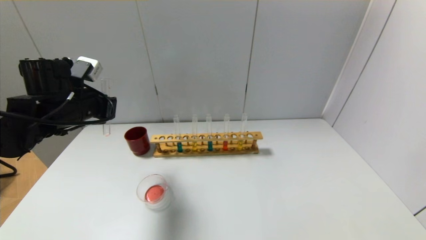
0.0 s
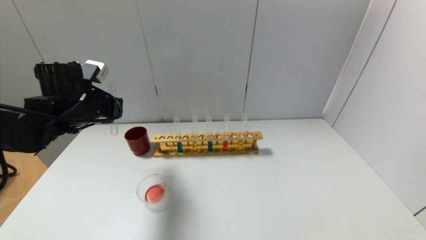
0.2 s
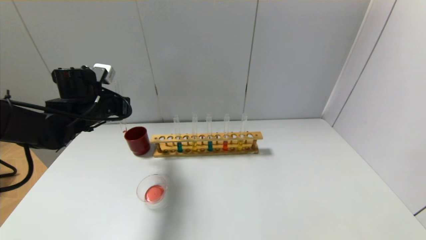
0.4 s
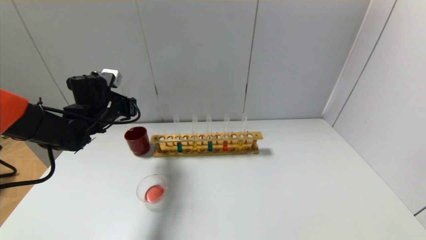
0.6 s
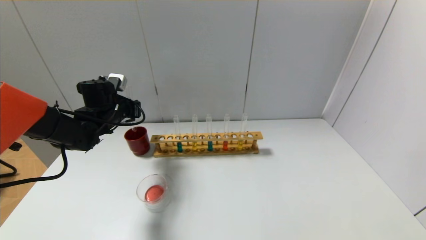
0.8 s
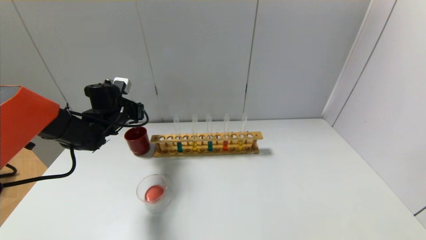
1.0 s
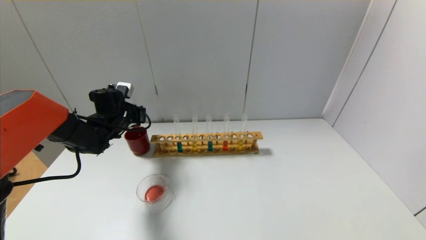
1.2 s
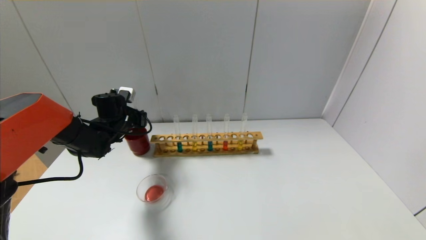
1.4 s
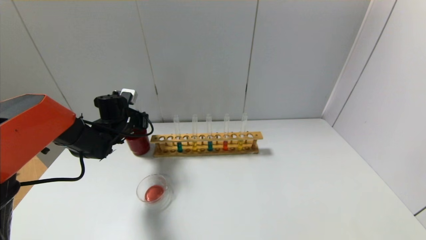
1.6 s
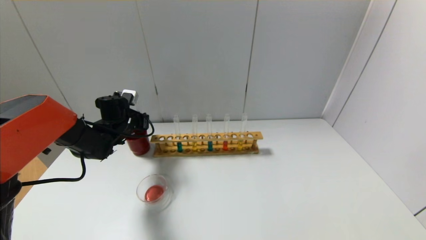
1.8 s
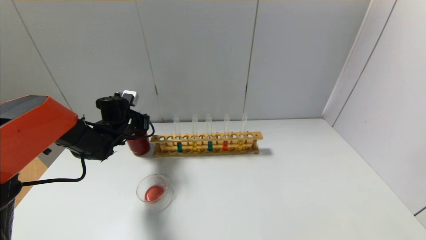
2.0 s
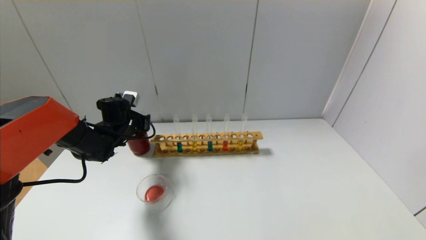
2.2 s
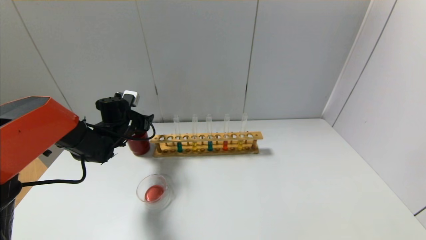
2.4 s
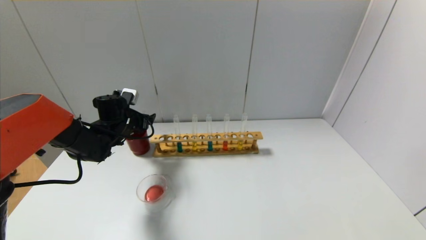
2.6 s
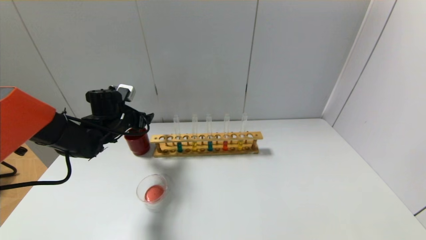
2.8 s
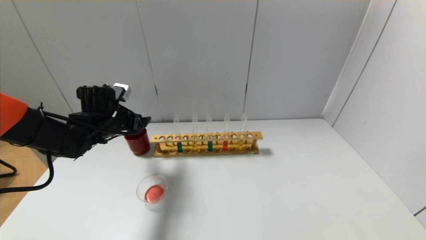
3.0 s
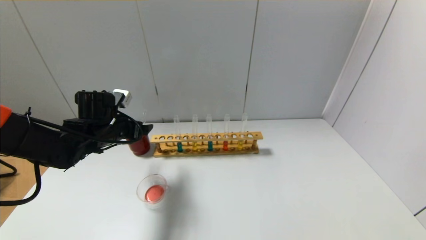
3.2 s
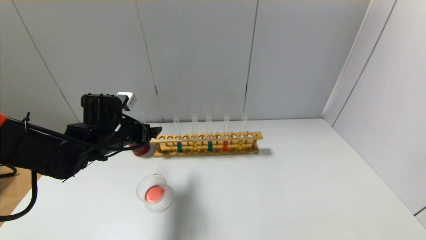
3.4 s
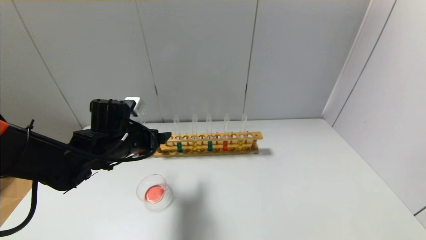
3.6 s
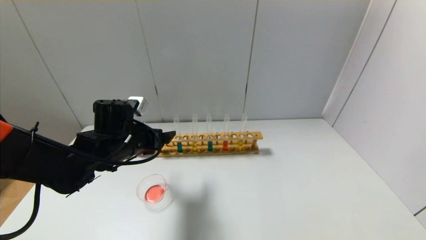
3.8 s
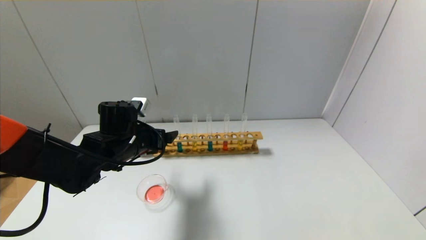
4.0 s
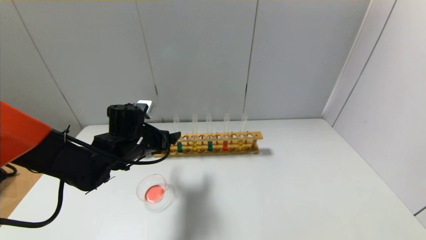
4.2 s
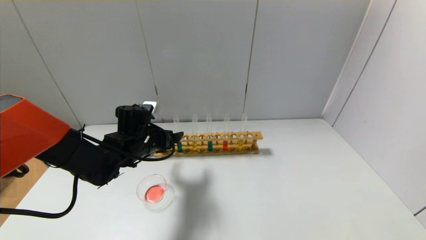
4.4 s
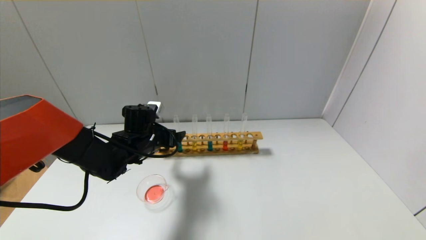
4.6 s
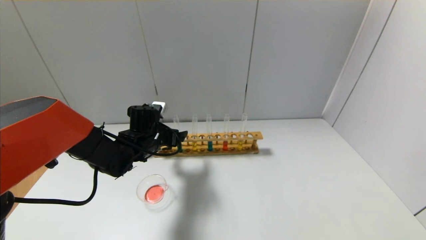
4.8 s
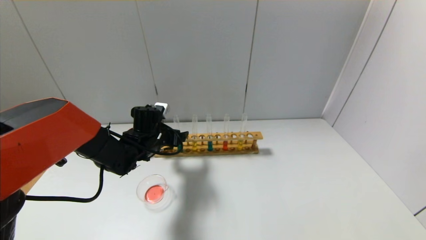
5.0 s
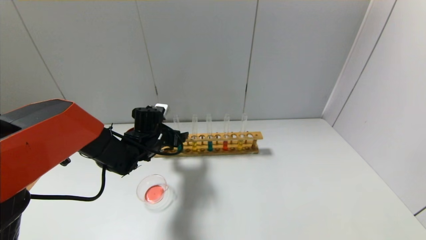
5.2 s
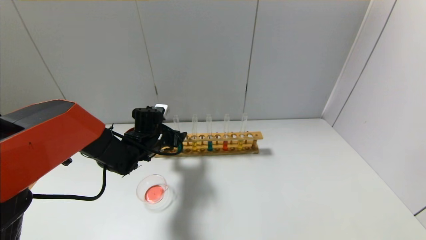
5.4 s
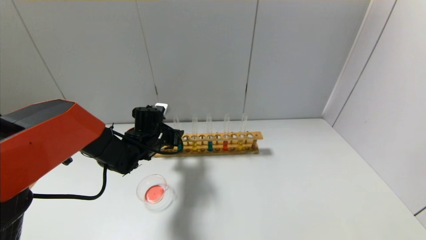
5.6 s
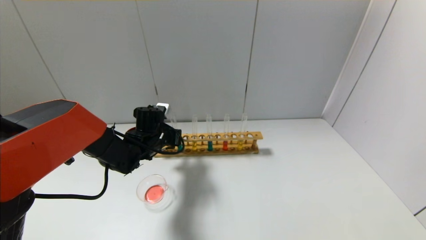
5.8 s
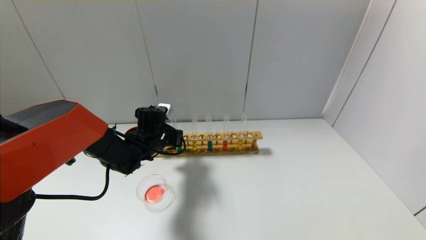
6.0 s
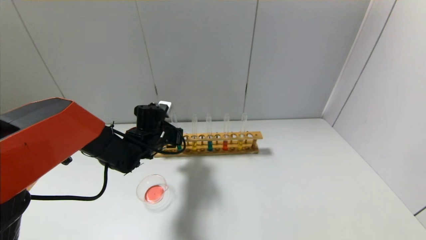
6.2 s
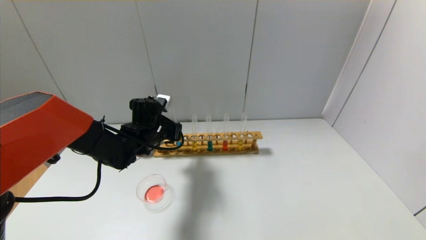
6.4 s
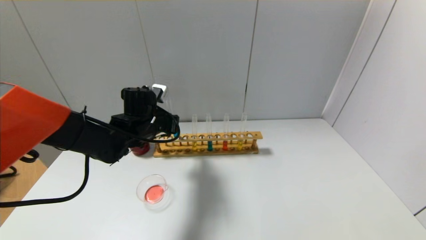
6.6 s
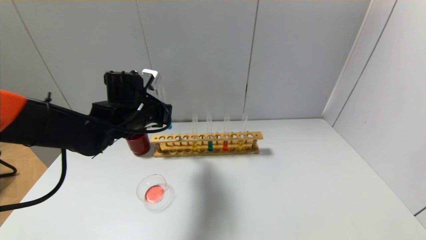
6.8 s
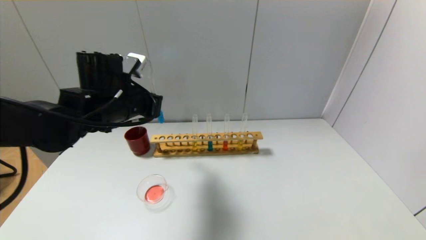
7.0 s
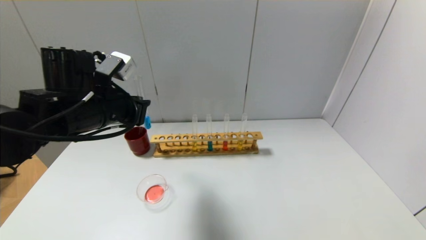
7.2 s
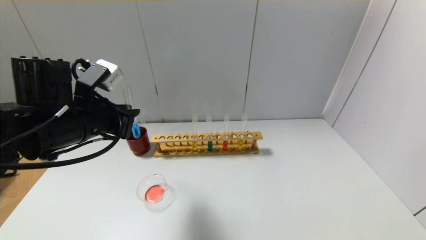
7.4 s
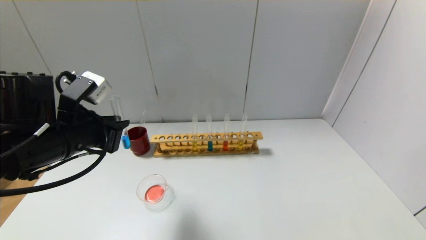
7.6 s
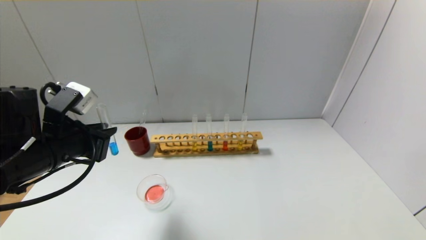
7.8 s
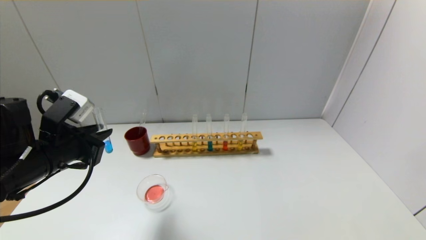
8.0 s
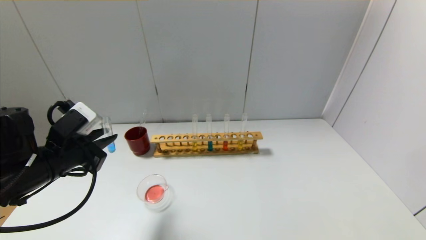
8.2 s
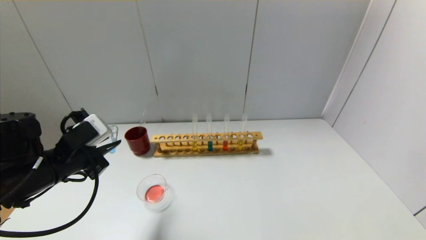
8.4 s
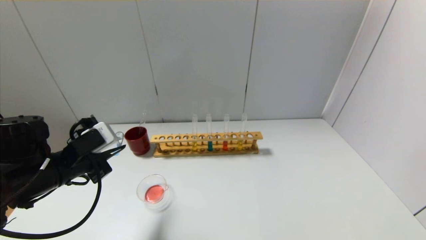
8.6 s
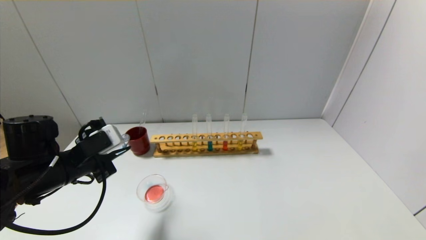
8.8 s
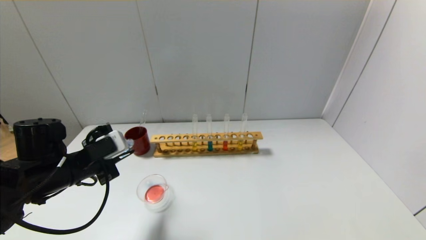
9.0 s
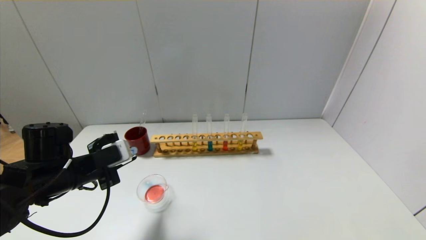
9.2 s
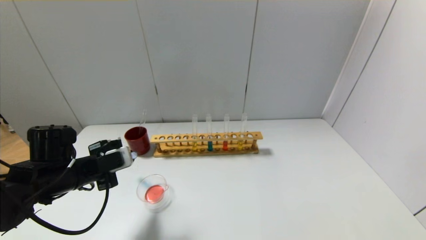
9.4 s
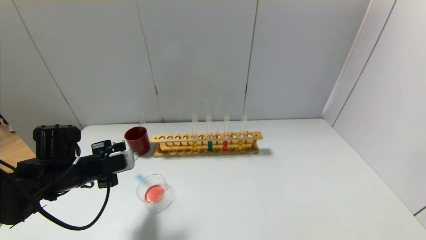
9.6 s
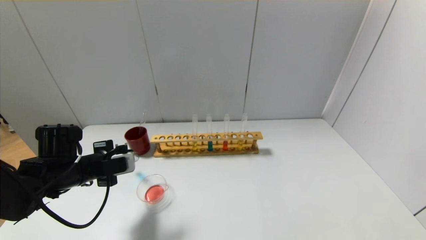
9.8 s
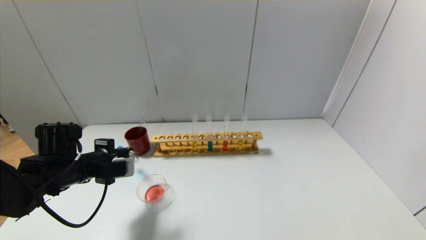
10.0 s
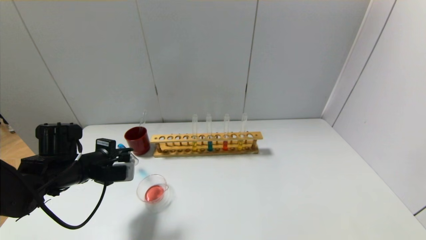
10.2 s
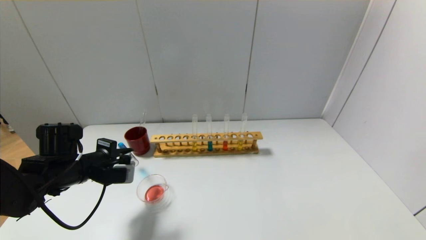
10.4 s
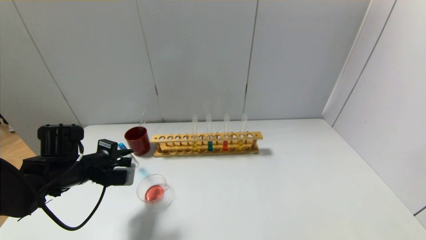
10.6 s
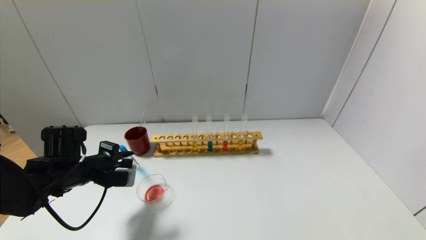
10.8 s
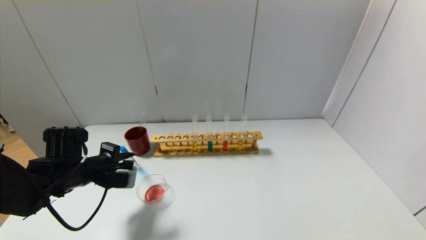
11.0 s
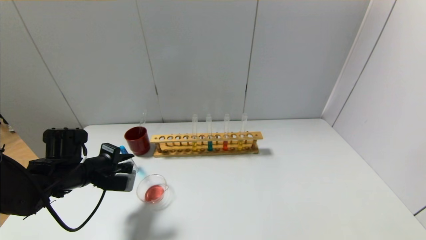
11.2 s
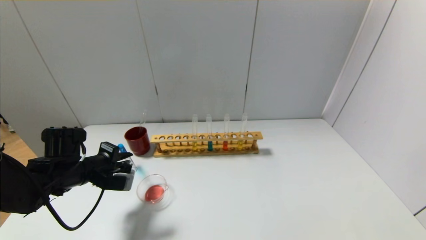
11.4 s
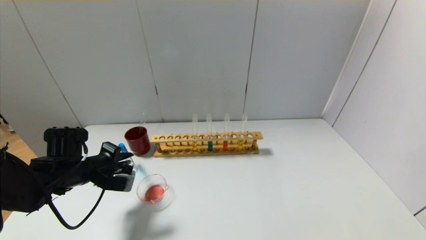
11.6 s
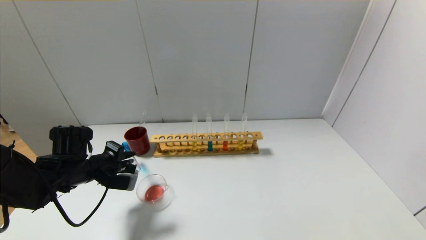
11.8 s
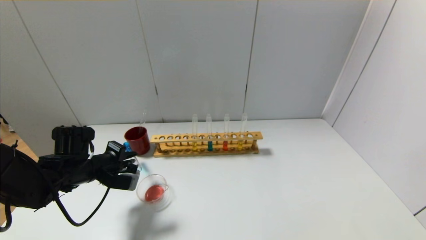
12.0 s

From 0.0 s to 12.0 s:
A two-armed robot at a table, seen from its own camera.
Step, from 0.0 s to 2.2 s: Place the test tube into the brown cup with the left gripper.
Step, from 2.4 s to 6.0 s: Grasp the blue reagent with the left gripper.
From 0.0 s to 1.6 s: The left gripper is displaced forward and downward by approximately 15 cm.
From 1.6 s to 3.0 s: The left gripper goes about 5 cm backward, and opens up.
From 3.0 s to 4.4 s: The left gripper moves to the right, some 10 cm.
From 4.4 s to 6.0 s: The left gripper changes place by roughly 5 cm, and closes its fingers.
From 6.0 s to 7.6 s: The left gripper is displaced backward, upward and to the left by about 25 cm.
From 7.6 s to 9.0 s: The left gripper shifts roughly 10 cm downward.
From 10.4 s to 12.0 s: There are only small adjustments of the grippers.

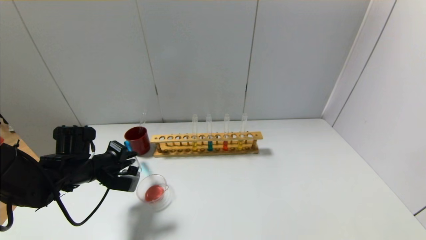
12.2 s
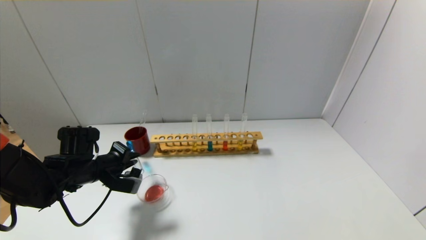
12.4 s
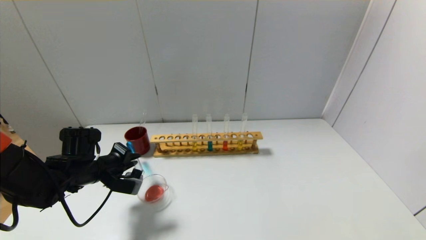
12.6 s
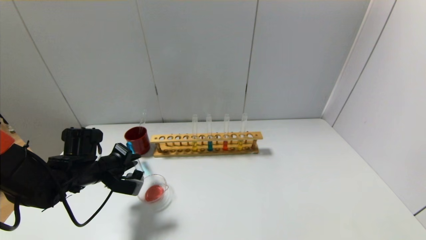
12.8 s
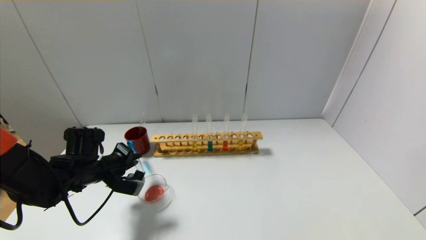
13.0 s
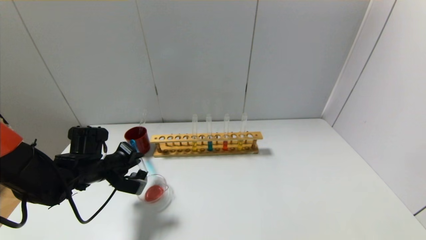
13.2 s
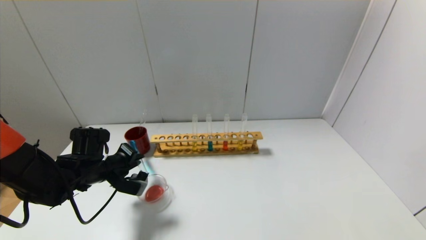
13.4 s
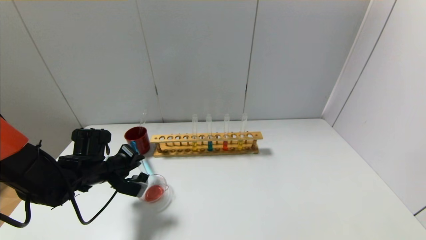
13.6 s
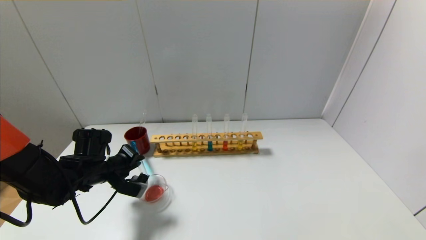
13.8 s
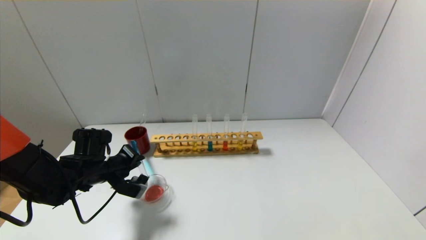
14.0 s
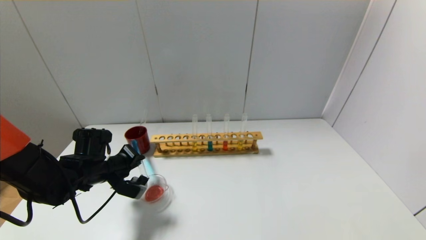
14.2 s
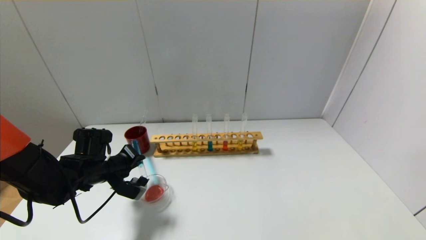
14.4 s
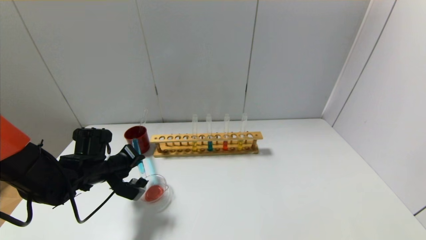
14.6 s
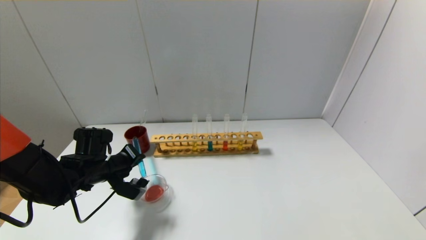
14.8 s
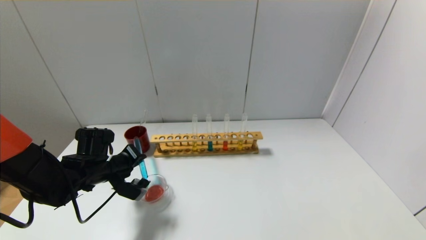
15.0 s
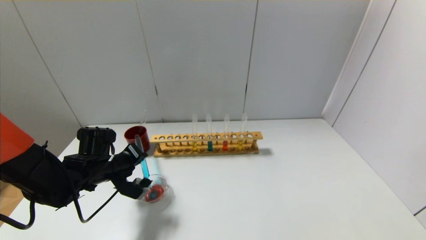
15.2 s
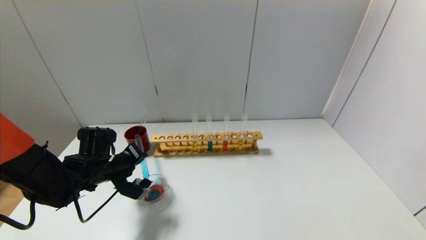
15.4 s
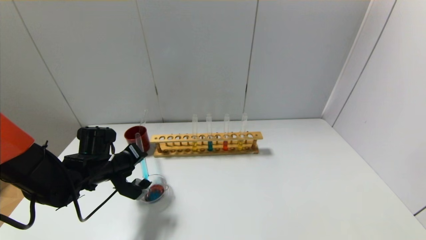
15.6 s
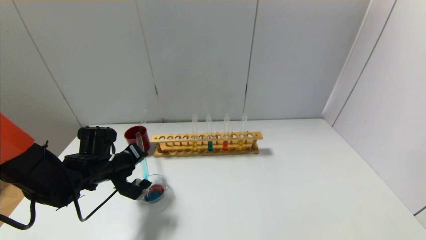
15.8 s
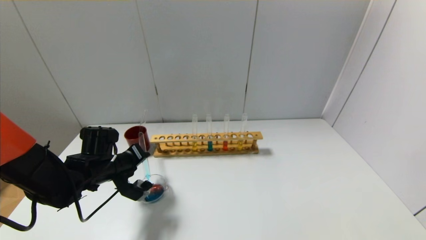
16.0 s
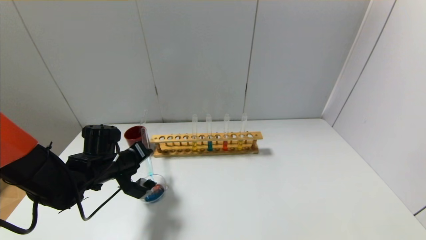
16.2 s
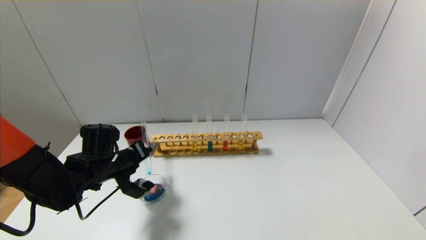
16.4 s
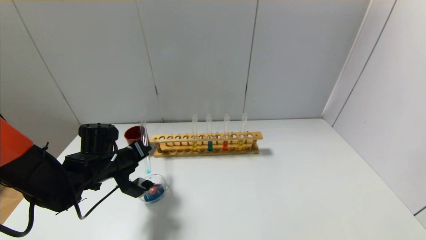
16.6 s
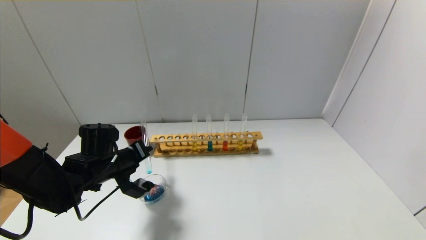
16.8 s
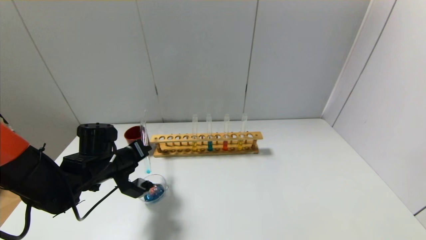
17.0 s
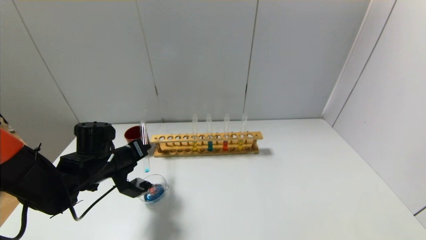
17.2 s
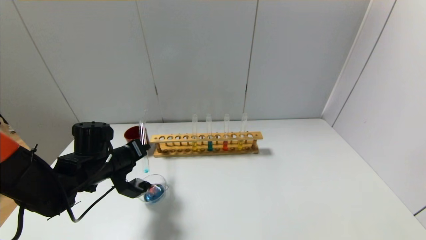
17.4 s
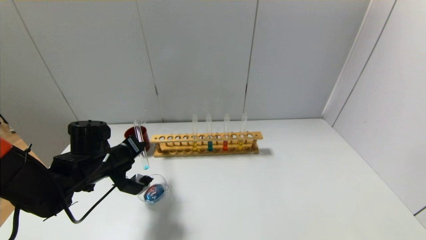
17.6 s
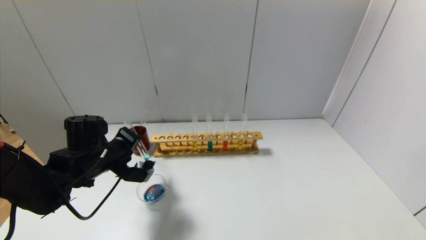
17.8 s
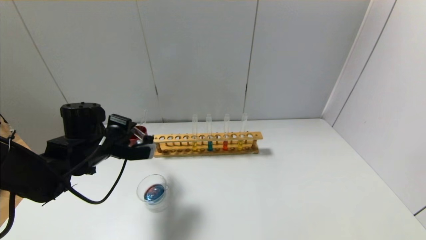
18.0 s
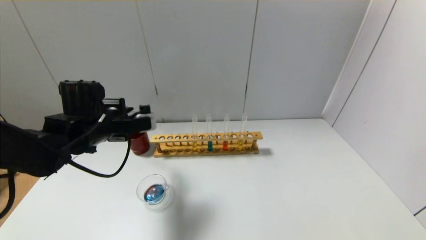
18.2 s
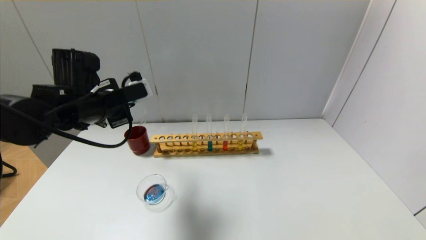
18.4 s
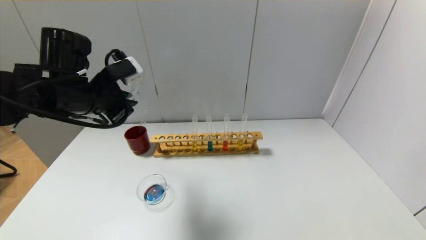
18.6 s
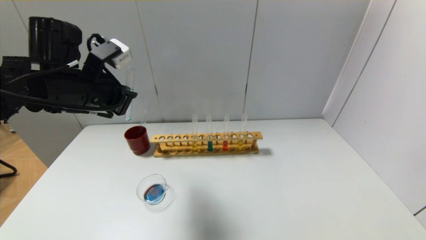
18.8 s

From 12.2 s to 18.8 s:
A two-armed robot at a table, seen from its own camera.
Step, from 12.2 s to 17.8 s: Pour the blue reagent into the graduated cylinder with the left gripper.
From 12.2 s to 13.8 s: There are only small adjustments of the grippers.
From 13.8 s to 15.4 s: The grippers move only a little.
From 15.4 s to 17.2 s: The grippers move only a little.
From 17.2 s to 18.8 s: The left gripper goes about 20 cm upward.
